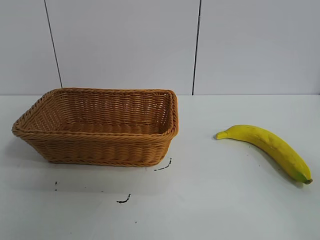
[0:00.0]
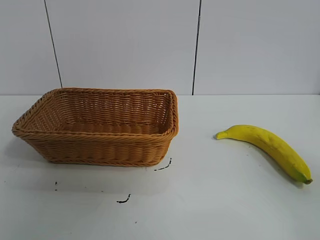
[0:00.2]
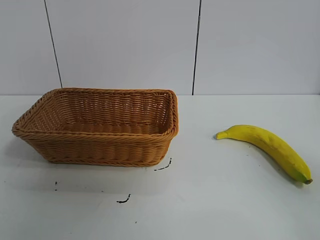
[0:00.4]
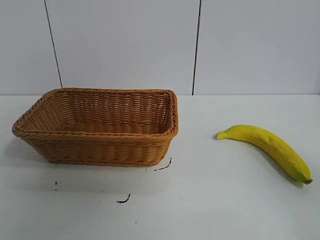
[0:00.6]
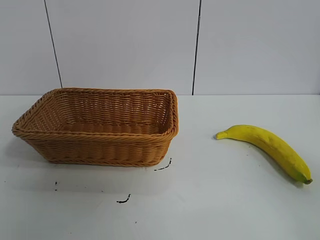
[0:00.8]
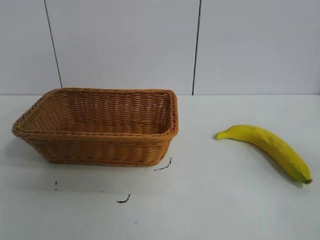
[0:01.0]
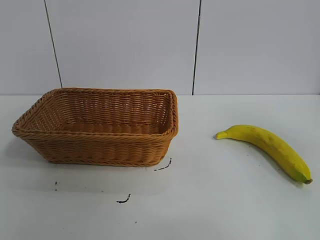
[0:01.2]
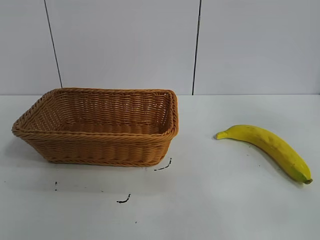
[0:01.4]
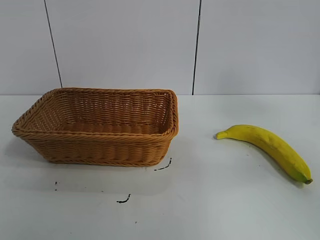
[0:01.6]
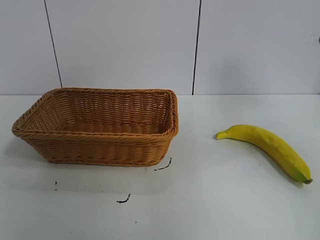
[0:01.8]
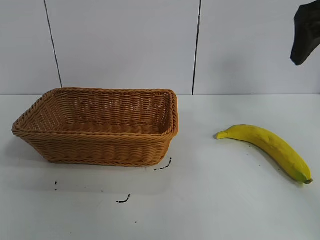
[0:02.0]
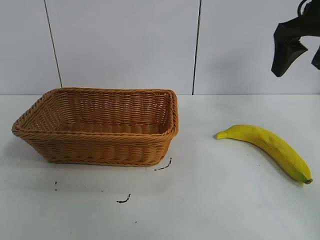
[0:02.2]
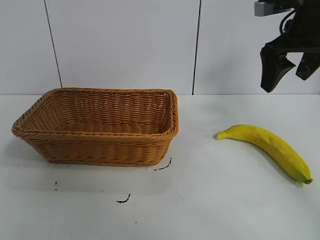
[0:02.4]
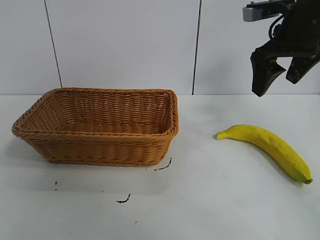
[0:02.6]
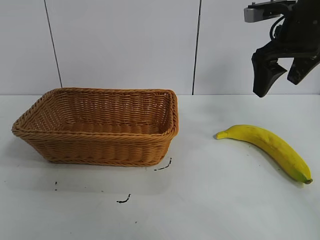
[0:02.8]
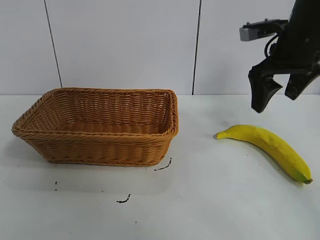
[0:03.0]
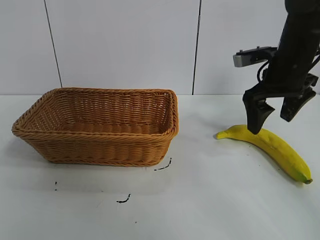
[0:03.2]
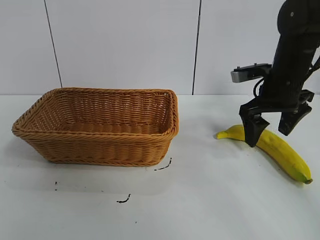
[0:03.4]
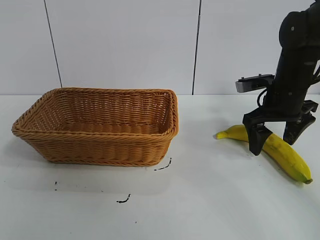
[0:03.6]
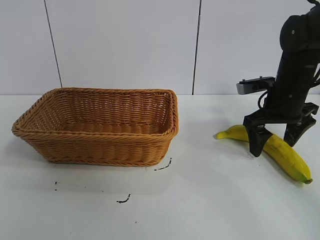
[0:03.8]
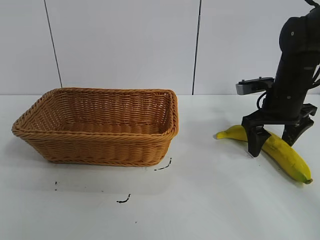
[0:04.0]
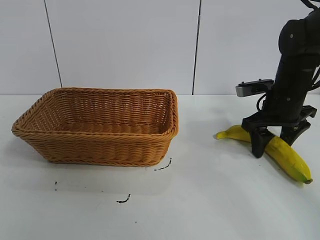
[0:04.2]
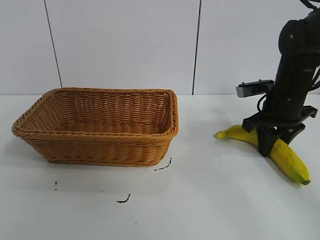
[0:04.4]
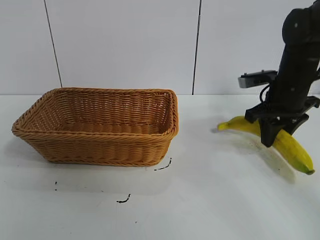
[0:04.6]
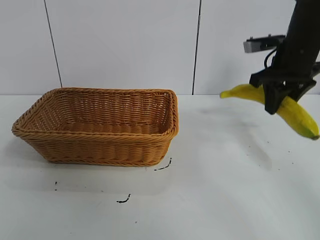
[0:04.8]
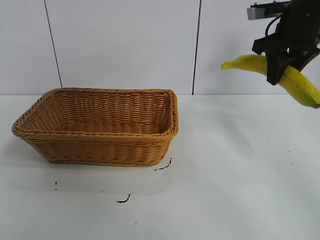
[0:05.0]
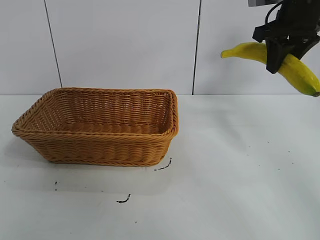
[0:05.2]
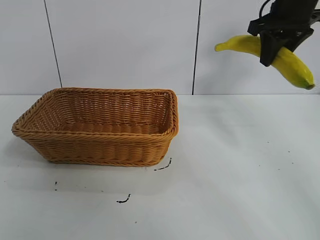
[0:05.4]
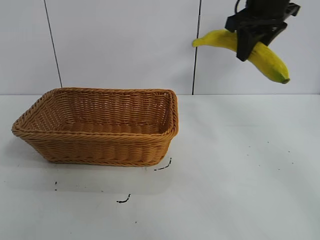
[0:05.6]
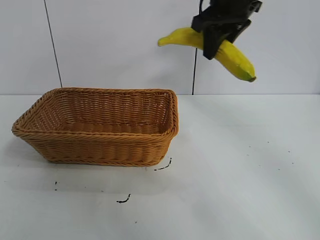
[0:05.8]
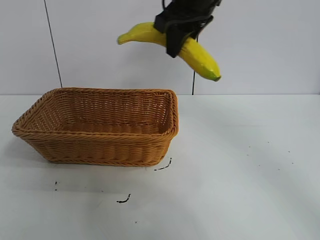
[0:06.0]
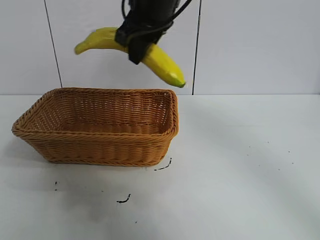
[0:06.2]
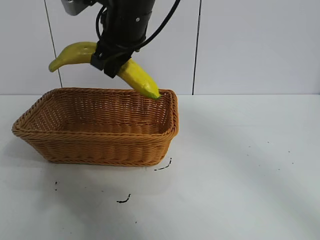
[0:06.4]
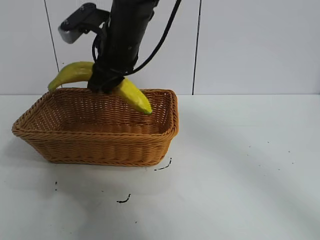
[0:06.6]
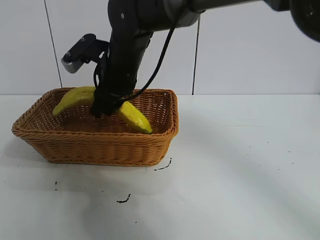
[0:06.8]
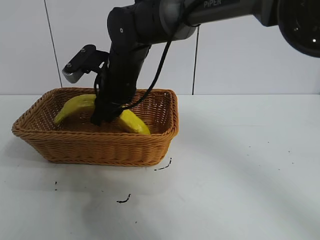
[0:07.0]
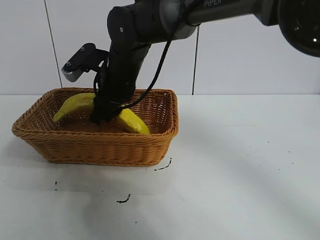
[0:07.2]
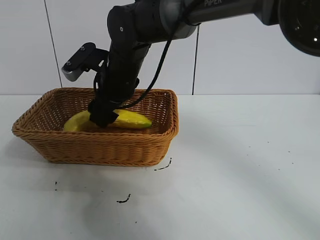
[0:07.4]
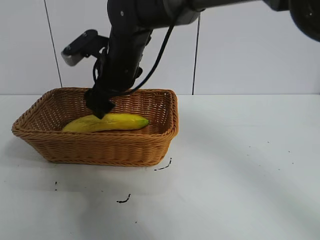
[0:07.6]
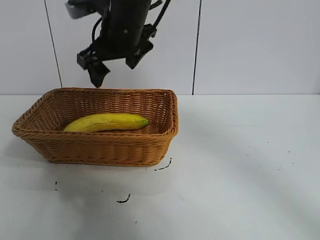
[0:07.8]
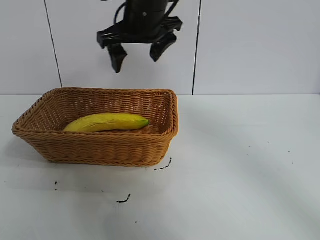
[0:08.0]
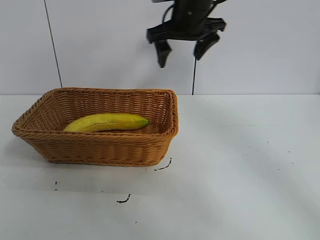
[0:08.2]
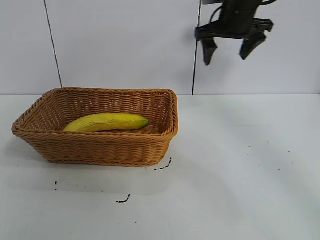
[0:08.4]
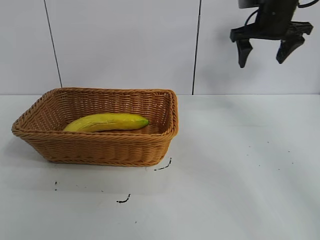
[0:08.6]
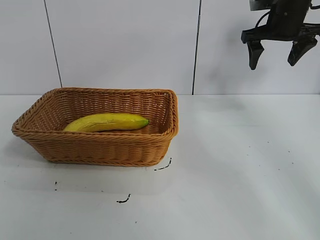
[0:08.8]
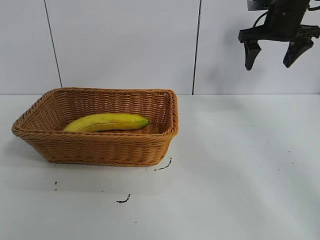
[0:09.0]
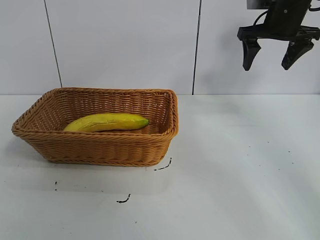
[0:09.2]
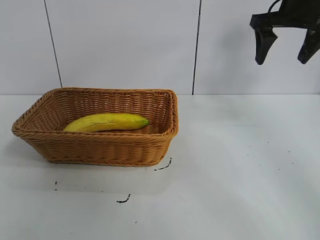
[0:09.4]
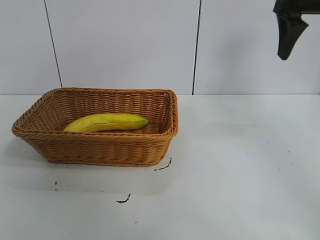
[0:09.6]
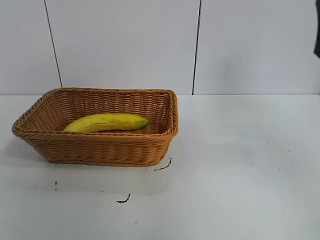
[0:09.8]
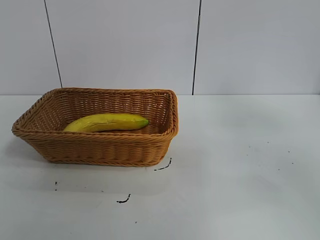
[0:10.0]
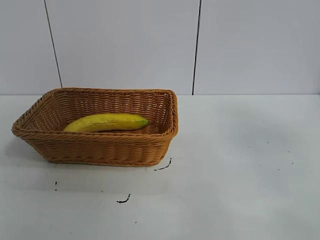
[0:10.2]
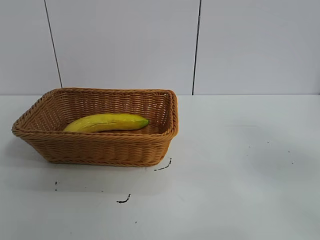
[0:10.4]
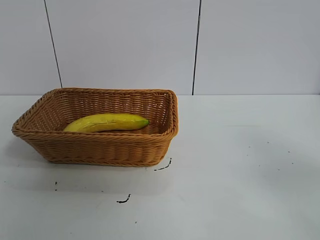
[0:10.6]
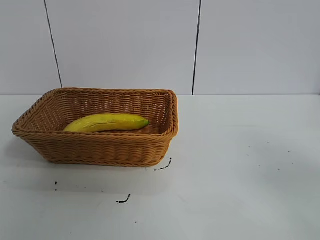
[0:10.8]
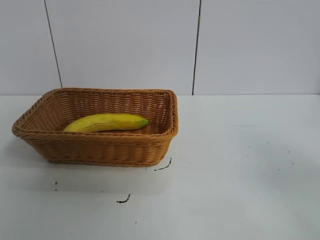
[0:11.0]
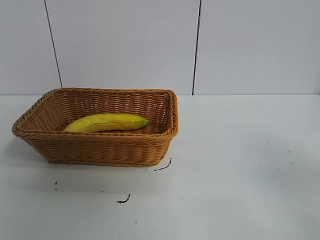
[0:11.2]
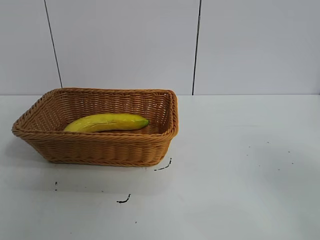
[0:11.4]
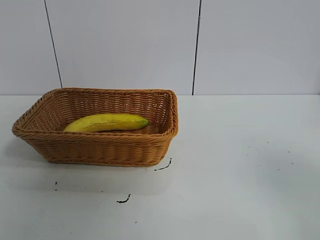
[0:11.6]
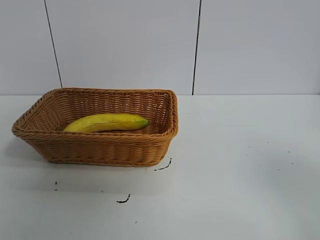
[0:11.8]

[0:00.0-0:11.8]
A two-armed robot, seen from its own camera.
Task of the whole recording: pick up the banana and put it into the basket.
Step, 0:01.0 to 0:04.4: Grasp the banana with right gripper.
Step, 0:04.6 to 0:07.4: Place the banana in the basket with right gripper.
